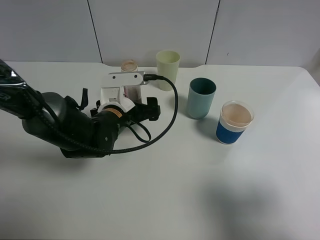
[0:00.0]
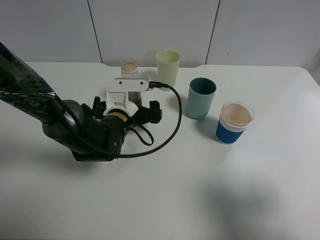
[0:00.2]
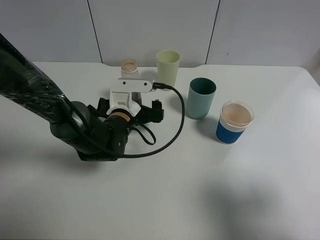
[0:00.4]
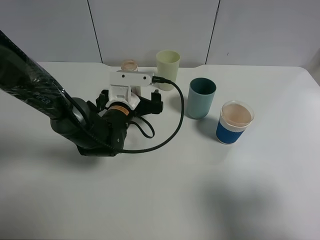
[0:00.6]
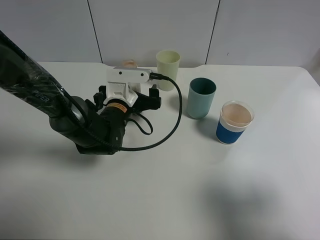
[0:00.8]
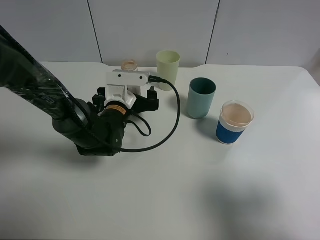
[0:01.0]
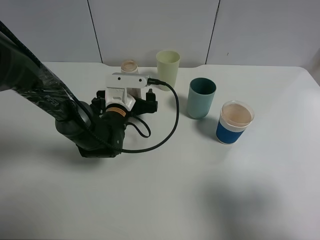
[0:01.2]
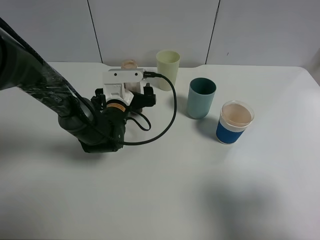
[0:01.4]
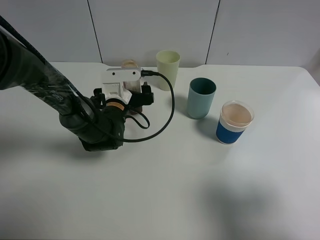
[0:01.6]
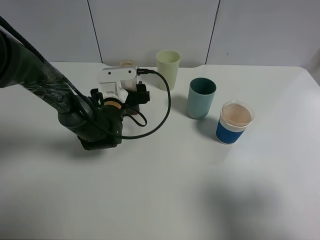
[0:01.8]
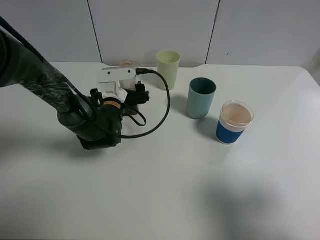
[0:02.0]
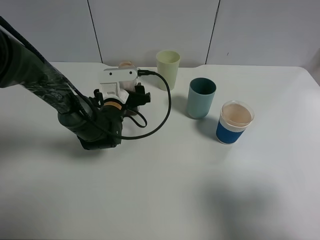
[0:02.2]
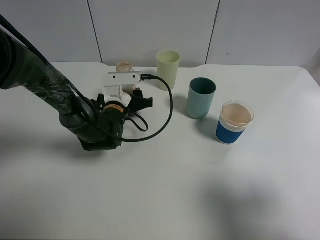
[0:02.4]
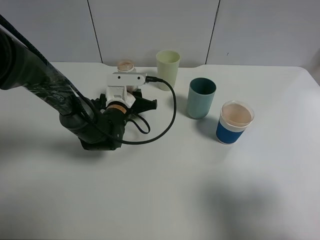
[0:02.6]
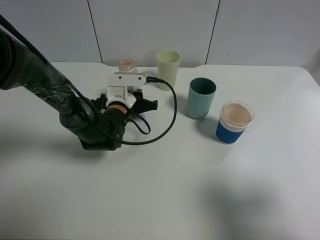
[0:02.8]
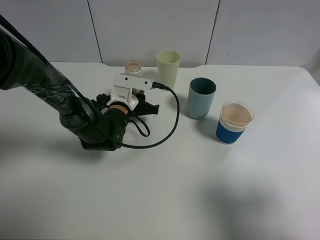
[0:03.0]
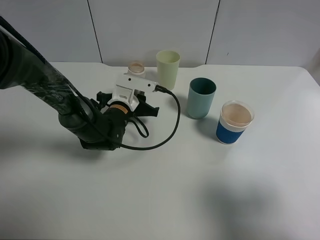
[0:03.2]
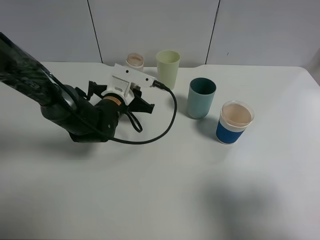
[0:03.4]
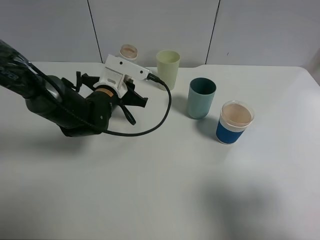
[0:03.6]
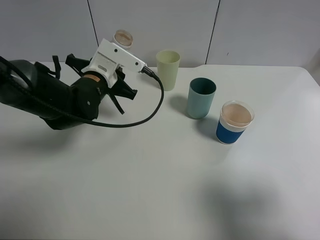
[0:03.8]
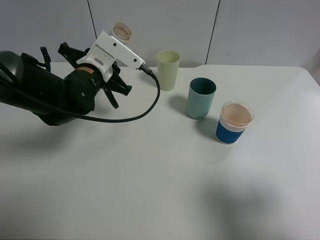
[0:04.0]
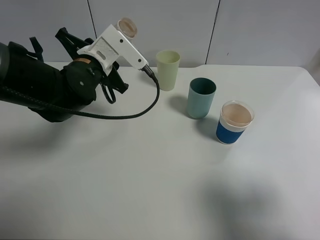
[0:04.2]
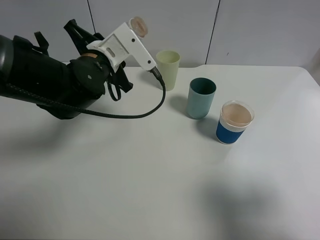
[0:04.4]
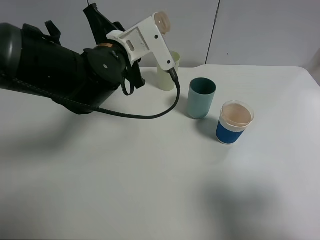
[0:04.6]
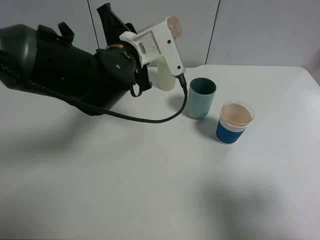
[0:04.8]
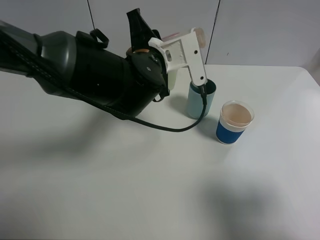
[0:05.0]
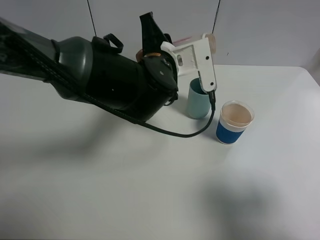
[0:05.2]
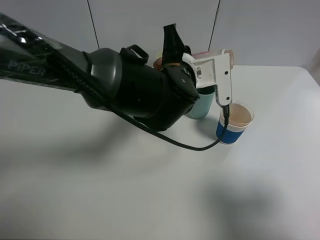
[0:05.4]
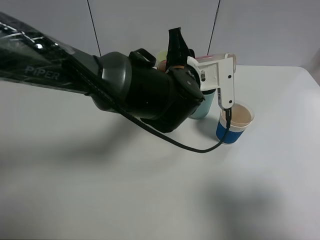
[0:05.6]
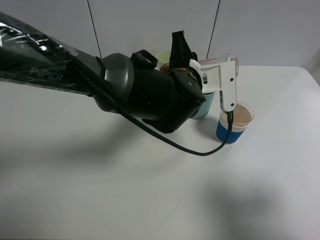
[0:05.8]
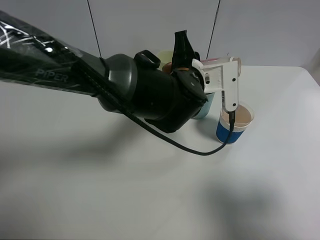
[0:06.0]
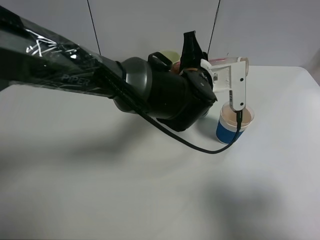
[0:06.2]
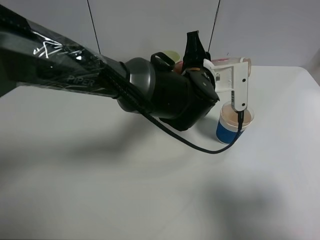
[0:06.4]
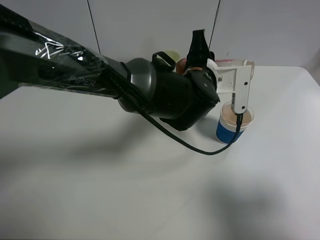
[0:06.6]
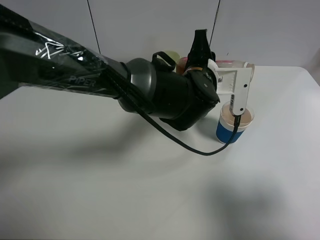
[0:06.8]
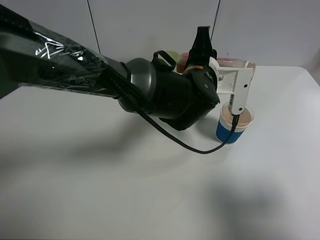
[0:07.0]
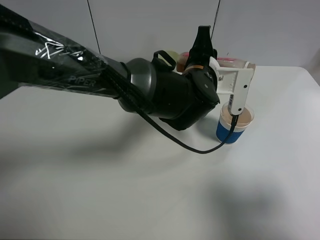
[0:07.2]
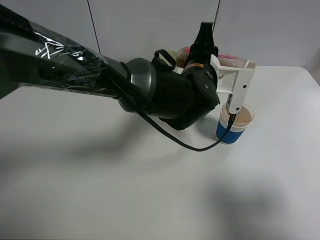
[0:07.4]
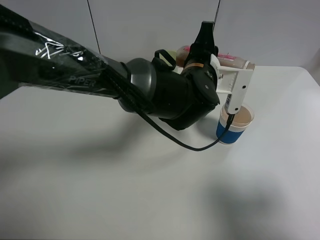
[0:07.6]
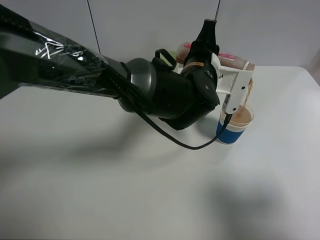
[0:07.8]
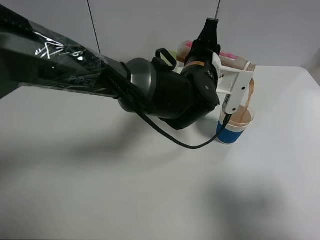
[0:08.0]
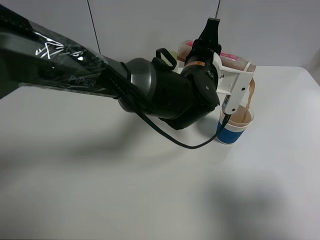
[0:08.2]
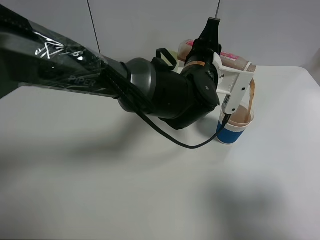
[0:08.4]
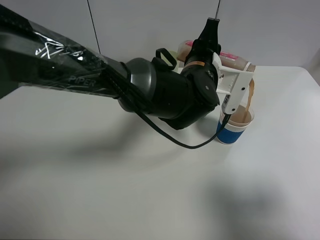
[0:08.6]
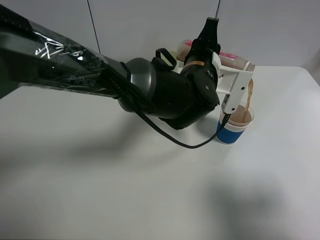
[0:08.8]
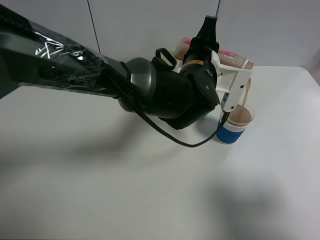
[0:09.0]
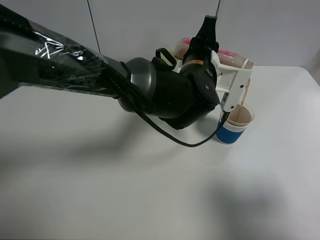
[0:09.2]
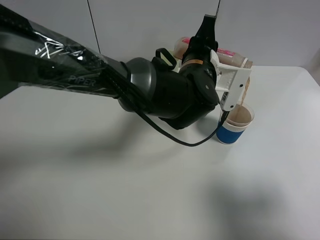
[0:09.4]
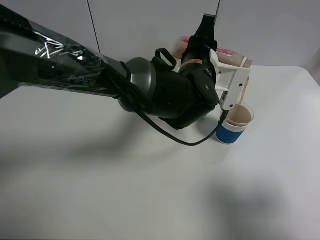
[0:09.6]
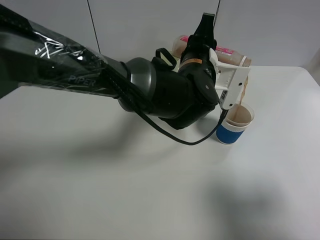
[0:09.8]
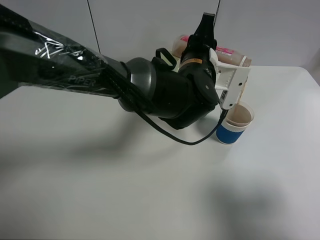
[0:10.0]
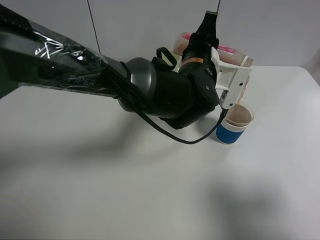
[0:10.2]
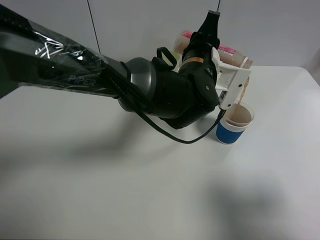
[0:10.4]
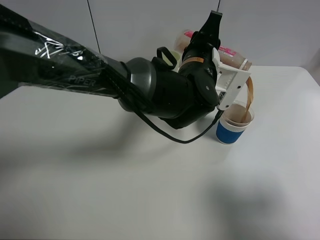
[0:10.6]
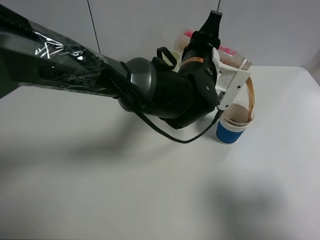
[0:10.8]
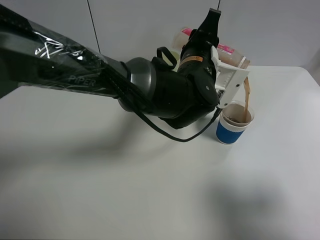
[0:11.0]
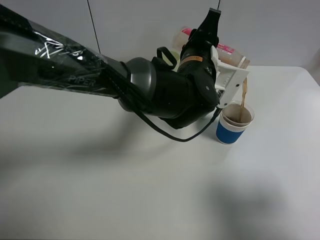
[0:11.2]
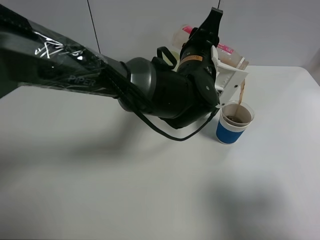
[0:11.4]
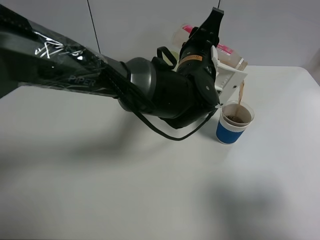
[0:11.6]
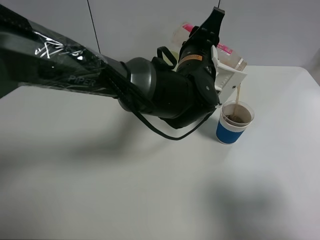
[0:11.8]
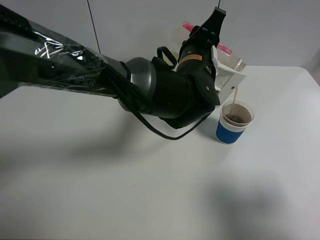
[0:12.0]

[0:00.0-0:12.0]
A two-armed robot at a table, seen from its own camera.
Task of the whole recording: use a clamp to hold the bottle of the drink, pour the beverage into a random cup, then clamp the cup containing the drink and pour the drink into another random cup.
Step, 0:00.0 to 0:04.4: Pick up the drink bottle with left gripper.
0:00.0 to 0:01.6: The left gripper travels forward by roughly 5 cm.
0:01.6 to 0:03.0: The left gripper closes up.
0:03.0 to 0:04.4: The left gripper shifts about 15 cm upward.
0:04.4 to 0:06.0: The left gripper heads to the right, covering about 15 cm.
0:06.0 to 0:07.6: The grippers make only small movements.
0:07.6 to 0:10.4: The grippers make only small movements.
0:10.4 to 0:12.0: The grippers make only small movements.

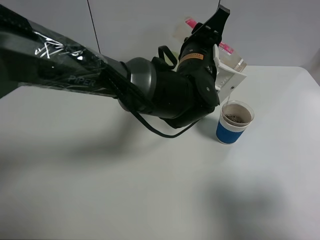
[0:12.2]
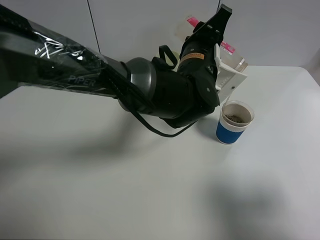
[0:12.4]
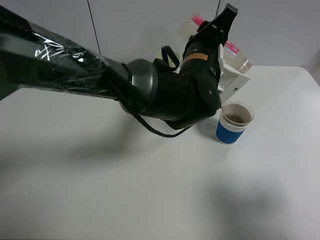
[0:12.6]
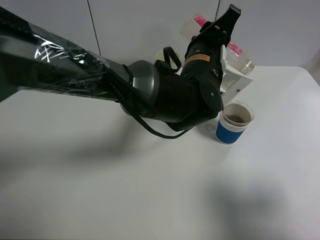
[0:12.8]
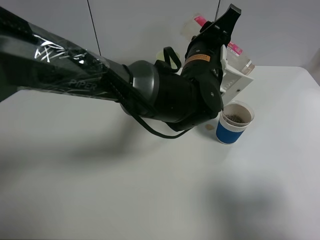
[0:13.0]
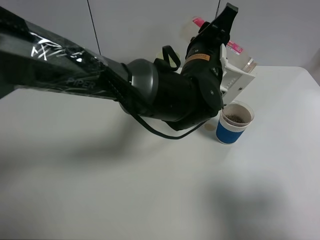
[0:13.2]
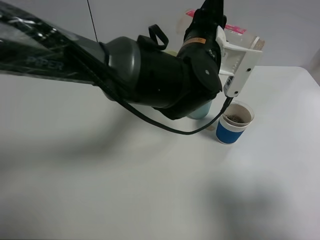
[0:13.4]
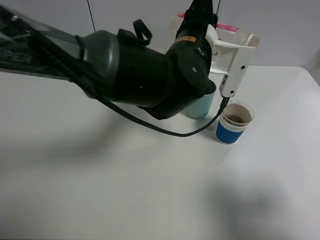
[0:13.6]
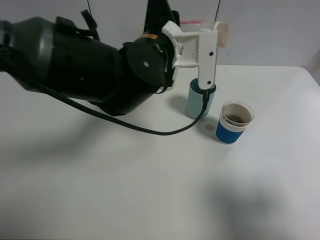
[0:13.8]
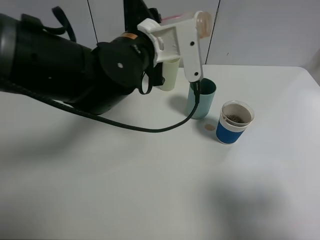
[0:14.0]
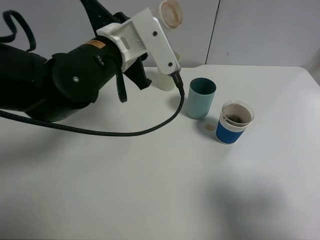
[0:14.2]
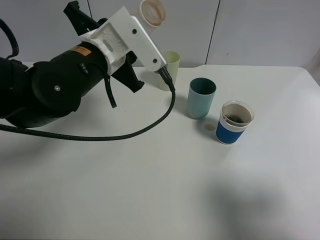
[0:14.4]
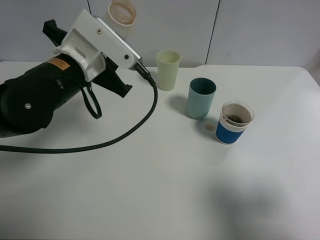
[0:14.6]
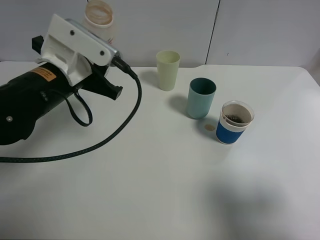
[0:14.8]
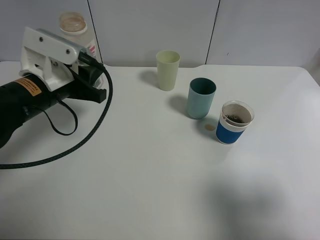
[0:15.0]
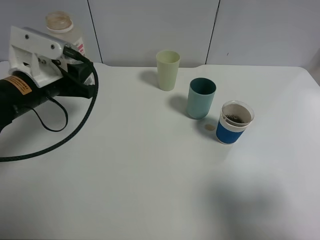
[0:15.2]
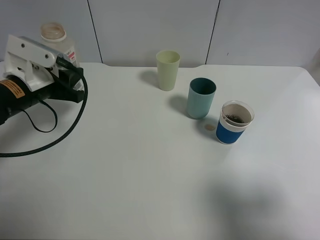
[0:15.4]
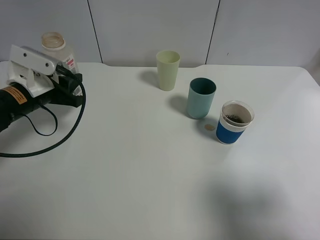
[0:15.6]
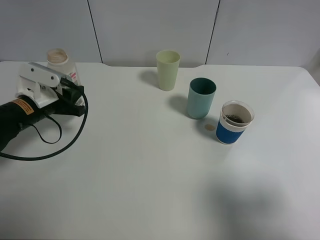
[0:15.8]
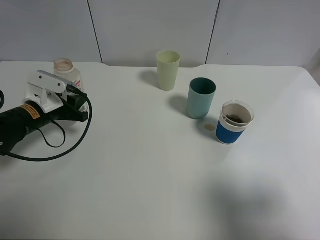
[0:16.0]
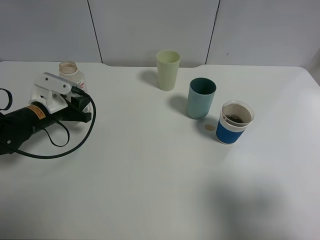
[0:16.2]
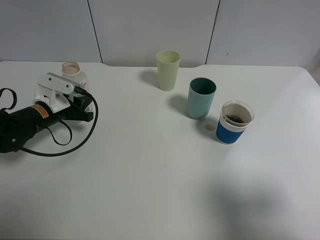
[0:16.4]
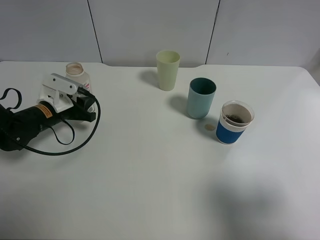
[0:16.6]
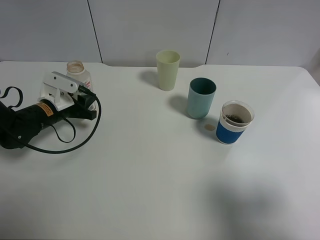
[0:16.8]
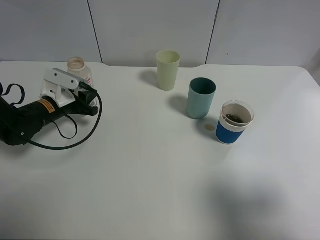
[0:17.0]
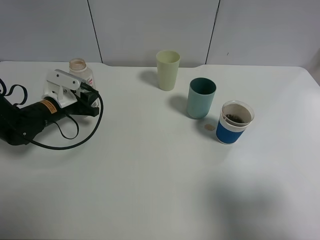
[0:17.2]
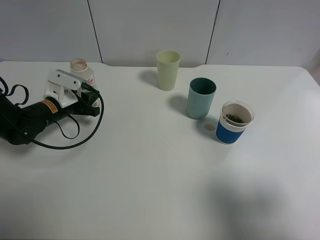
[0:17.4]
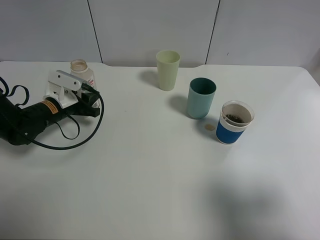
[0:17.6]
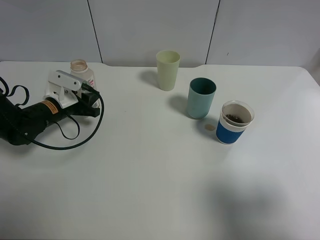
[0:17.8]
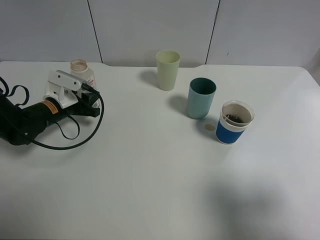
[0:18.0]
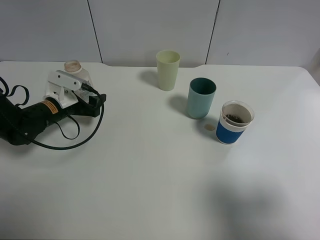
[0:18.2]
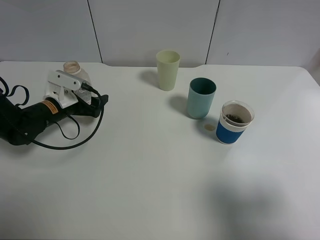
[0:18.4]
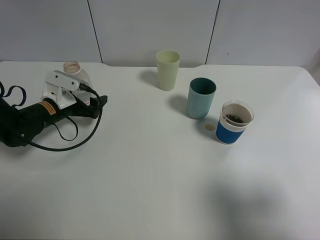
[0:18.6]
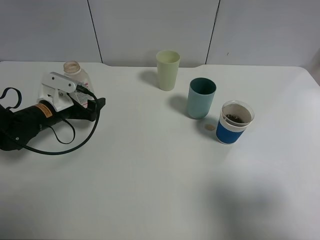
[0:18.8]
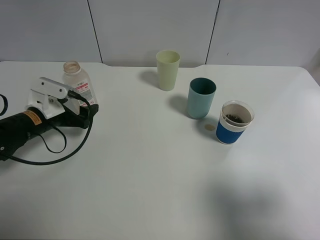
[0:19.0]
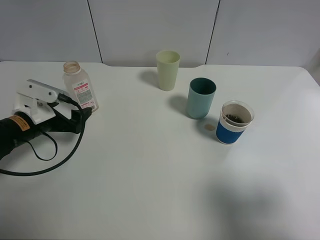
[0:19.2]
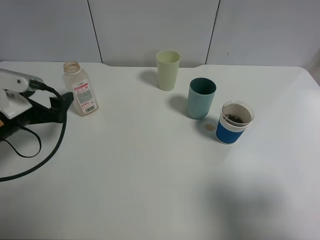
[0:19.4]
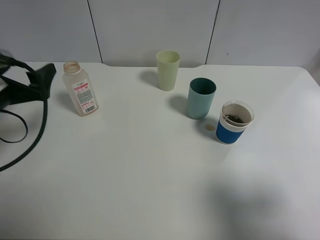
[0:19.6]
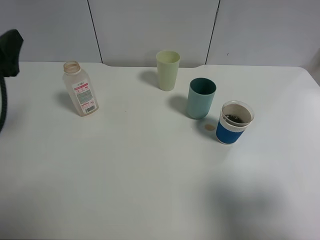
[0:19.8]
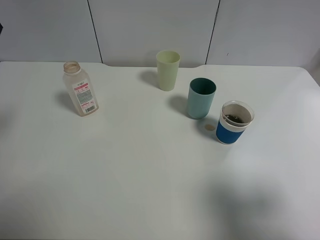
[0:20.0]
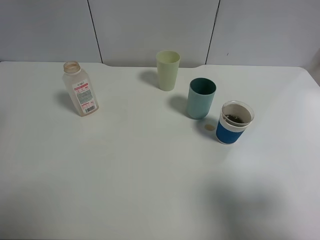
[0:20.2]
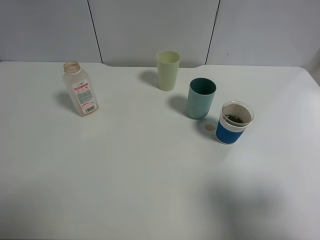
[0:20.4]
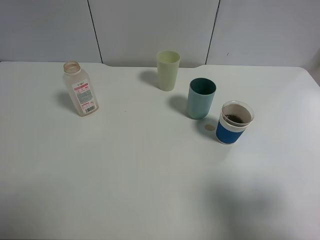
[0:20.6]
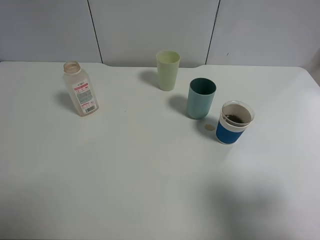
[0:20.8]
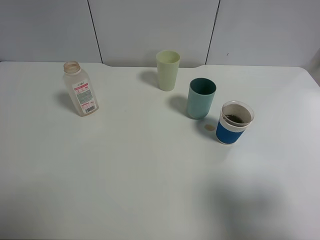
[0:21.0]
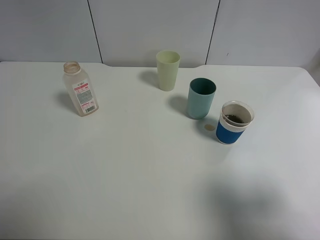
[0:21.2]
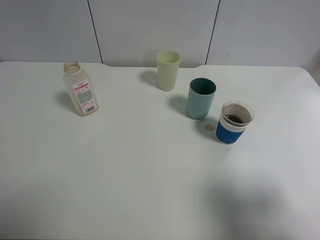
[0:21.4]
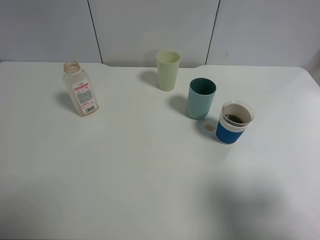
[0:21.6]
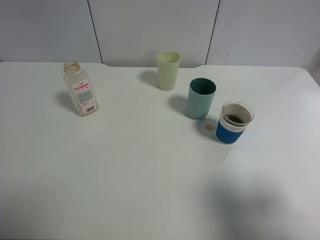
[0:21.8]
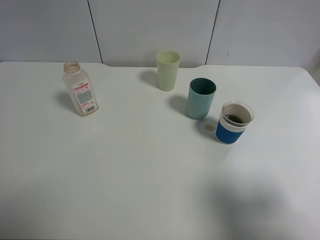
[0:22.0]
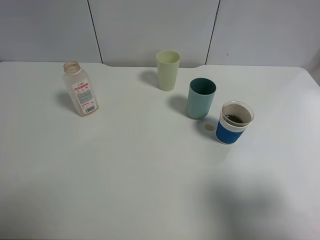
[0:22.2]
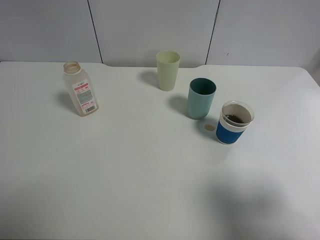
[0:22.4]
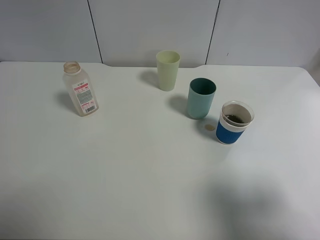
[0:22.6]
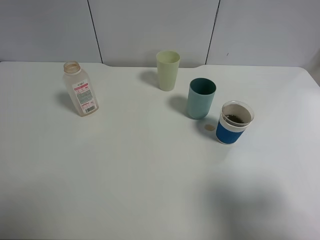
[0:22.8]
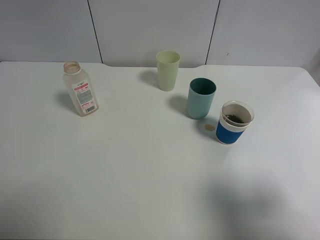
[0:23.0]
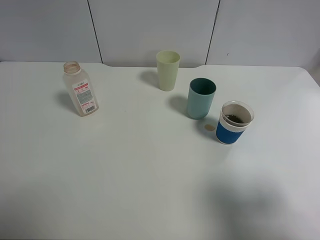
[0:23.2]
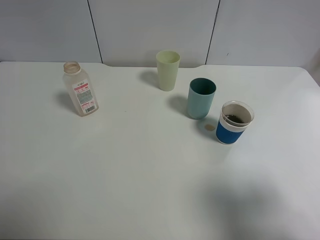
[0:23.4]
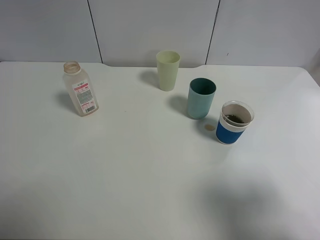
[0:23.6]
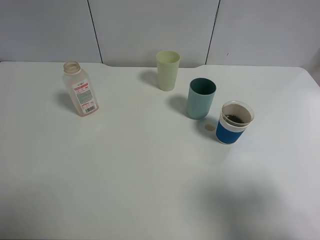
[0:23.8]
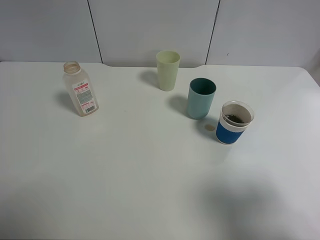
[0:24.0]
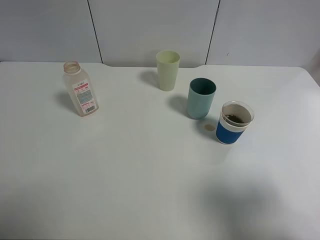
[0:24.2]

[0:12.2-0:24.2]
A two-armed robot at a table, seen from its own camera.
Task of the whole recording: use a clamp to hold the bottle of the drink, pour the beverage into a random cup, then clamp the cup containing the drink and pour the drink into another random cup.
Step, 0:14.0 to 0:19.0: Place the drink bottle on the table with left gripper.
0:12.2 to 0:13.8: The left gripper is displaced to the left by some 10 cm.
0:13.8 to 0:15.2: The left gripper goes about 20 cm to the left.
0:15.2 to 0:16.6: The left gripper travels downward and forward by roughly 15 cm.
0:16.6 to 0:18.2: The left gripper opens up.
0:18.2 to 0:19.8: The left gripper travels upward and backward by some 25 cm.
0:19.8 to 0:21.2: The left gripper shifts some 25 cm backward and upward.
